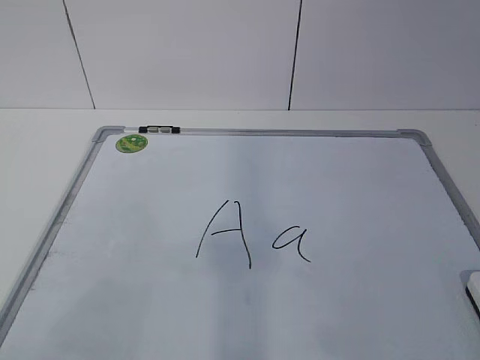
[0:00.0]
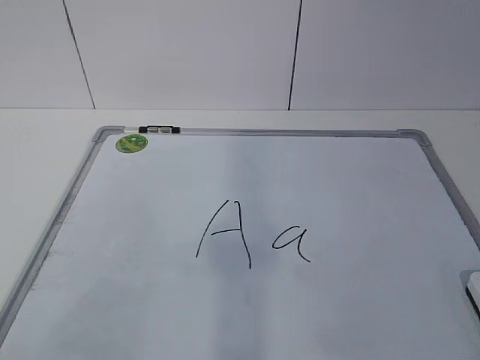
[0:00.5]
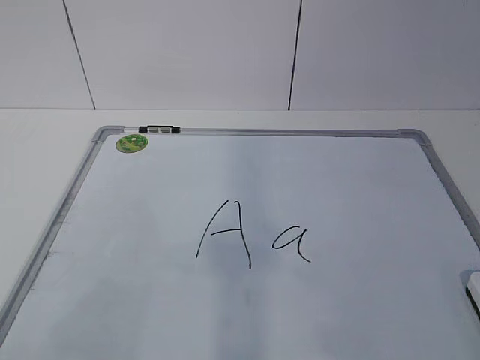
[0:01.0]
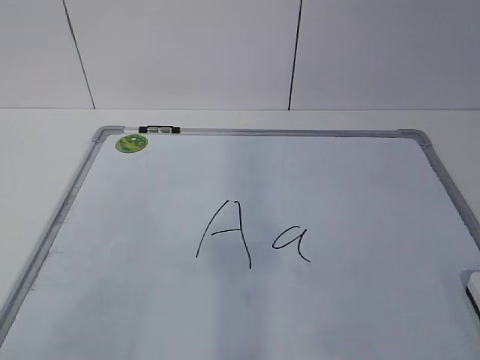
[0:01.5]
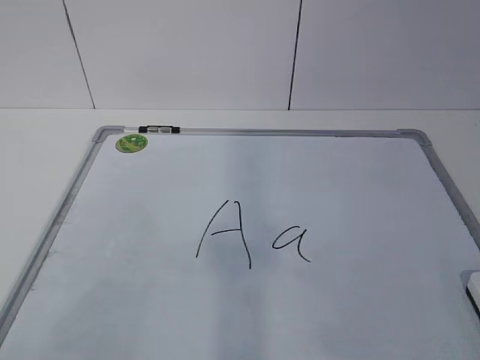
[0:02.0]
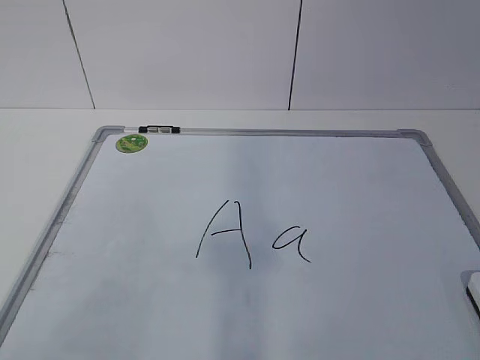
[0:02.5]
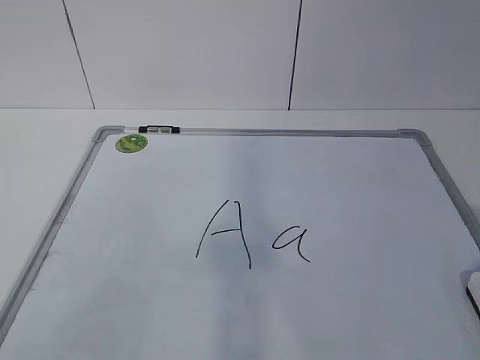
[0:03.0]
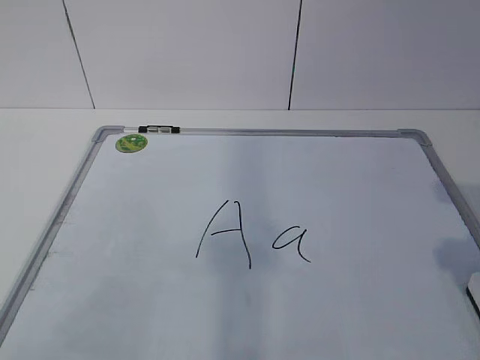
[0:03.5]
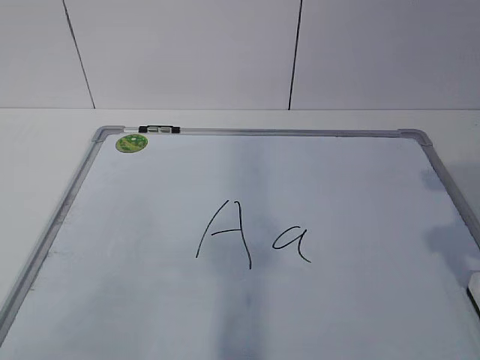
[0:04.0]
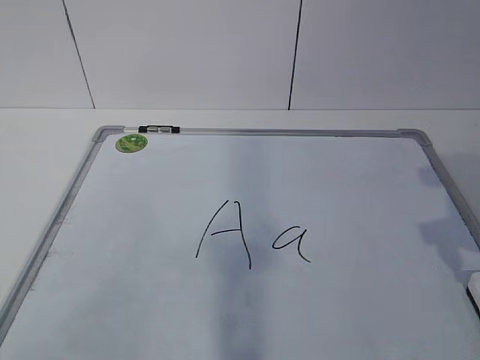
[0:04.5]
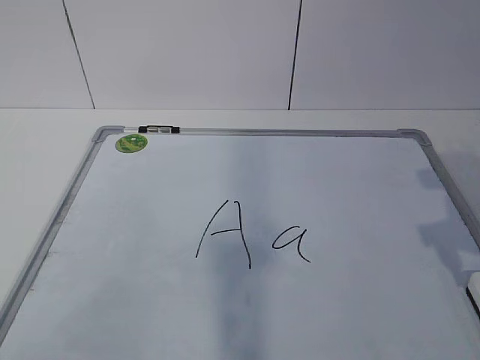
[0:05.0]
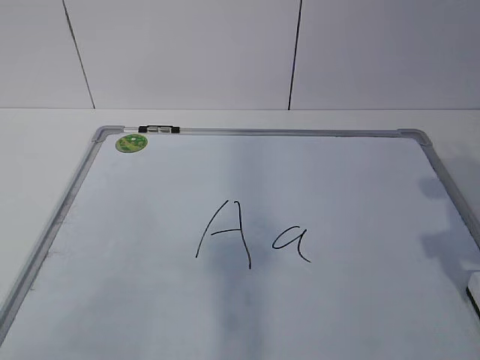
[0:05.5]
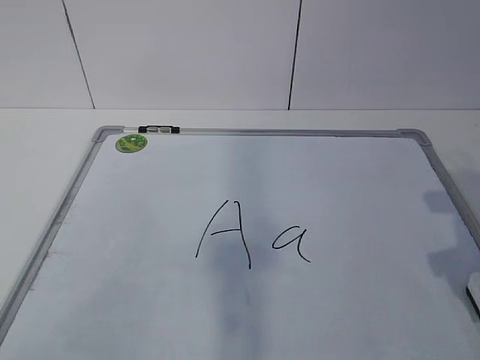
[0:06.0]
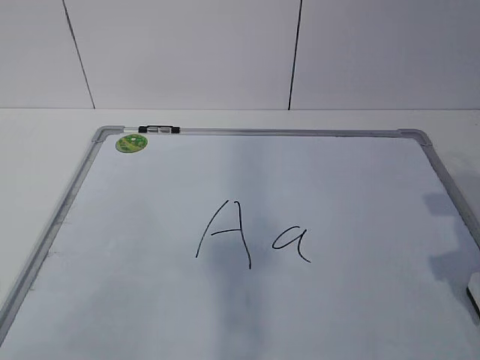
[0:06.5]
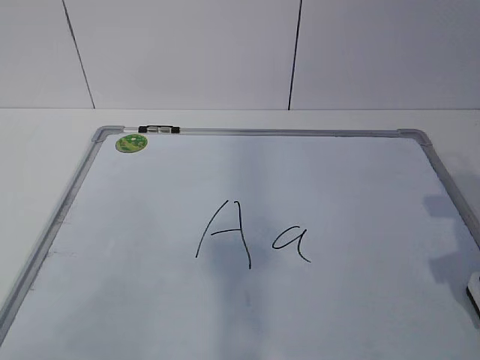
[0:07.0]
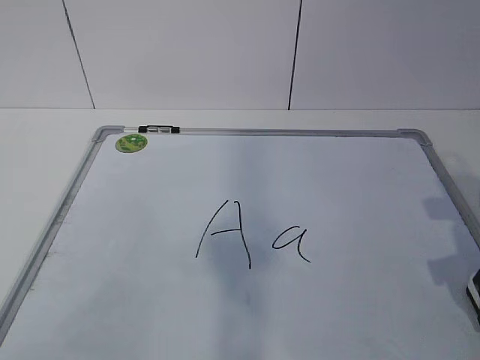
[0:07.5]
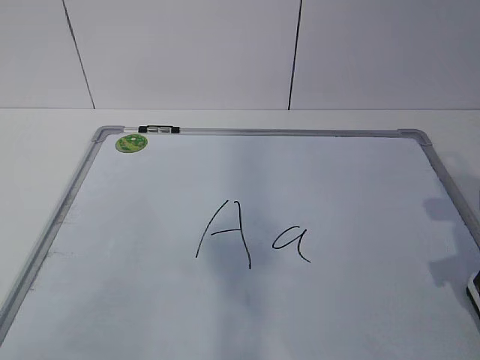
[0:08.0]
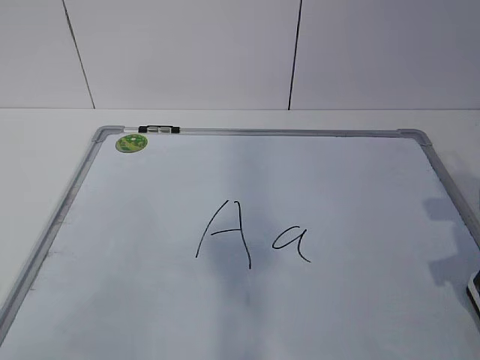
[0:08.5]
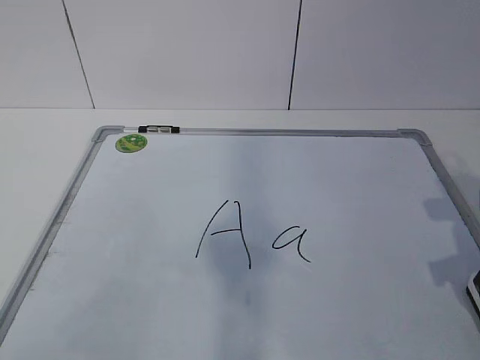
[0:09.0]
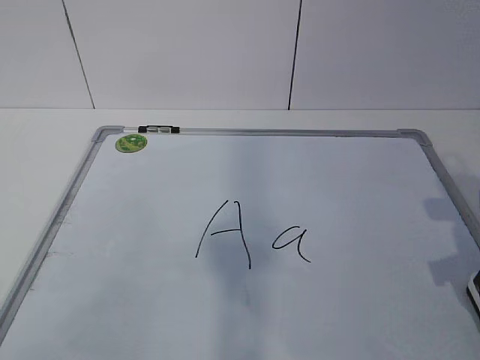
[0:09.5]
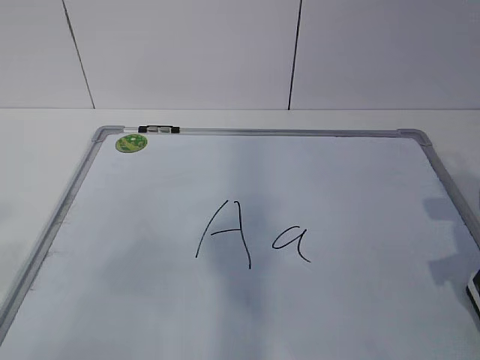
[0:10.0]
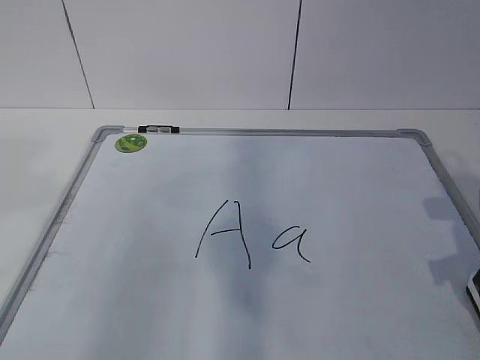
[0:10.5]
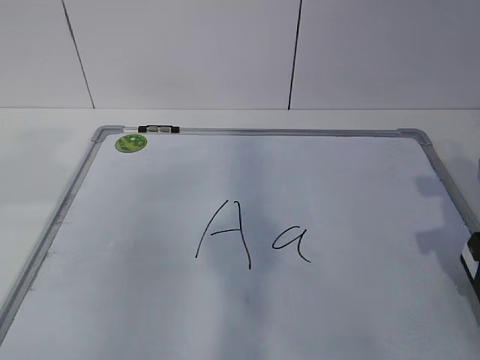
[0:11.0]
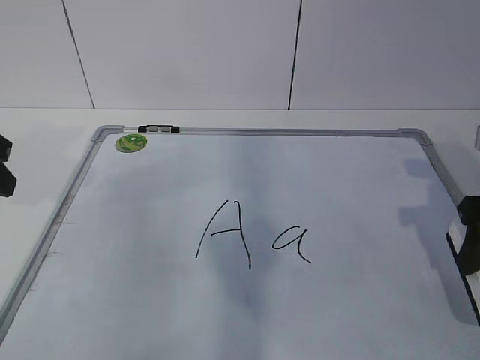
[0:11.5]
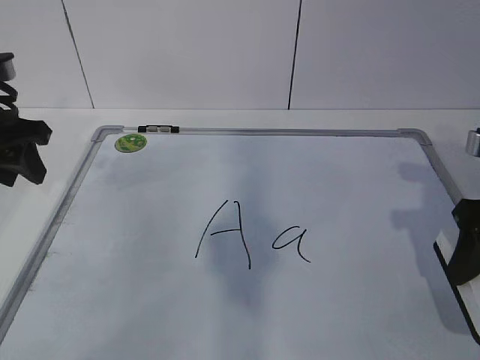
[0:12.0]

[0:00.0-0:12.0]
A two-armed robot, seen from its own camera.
Task of the whole recording: pick up the eraser on the blackboard and erase the letter "a".
0:02.0 to 0:04.0: The right gripper is displaced forward by about 20 cm, and opens its fingers.
0:10.0 to 0:12.0: The right gripper shifts by approximately 5 cm. The left gripper travels forward by approximately 30 cm.

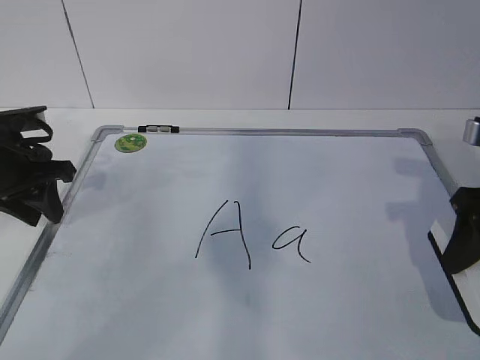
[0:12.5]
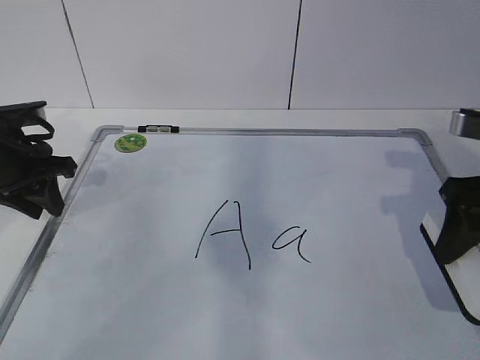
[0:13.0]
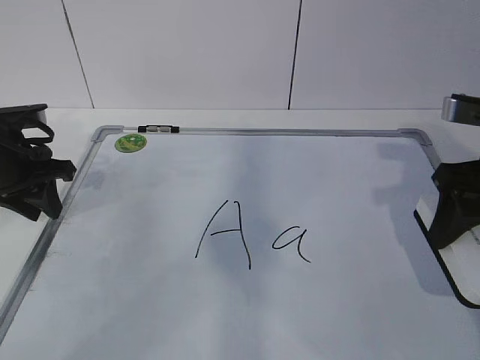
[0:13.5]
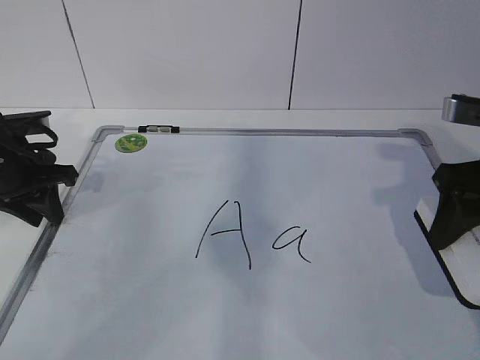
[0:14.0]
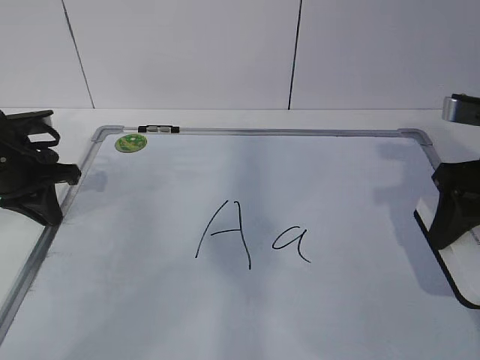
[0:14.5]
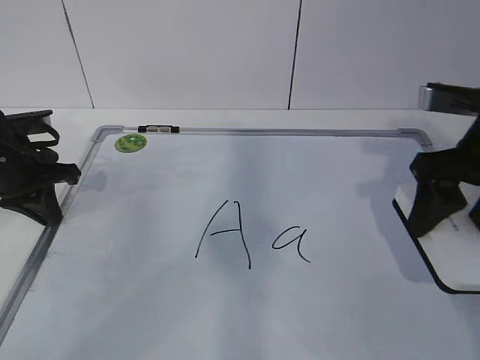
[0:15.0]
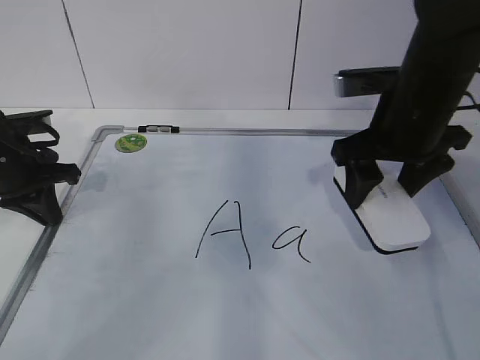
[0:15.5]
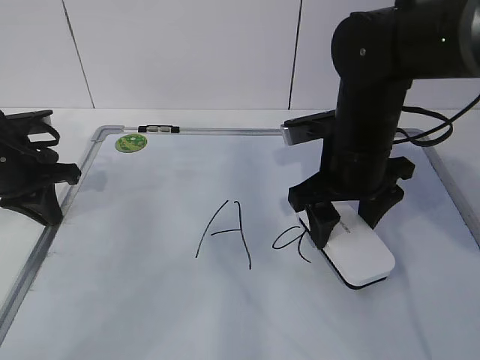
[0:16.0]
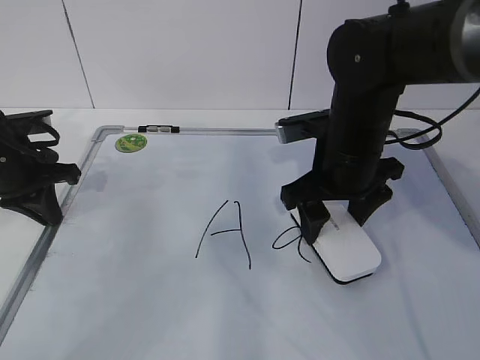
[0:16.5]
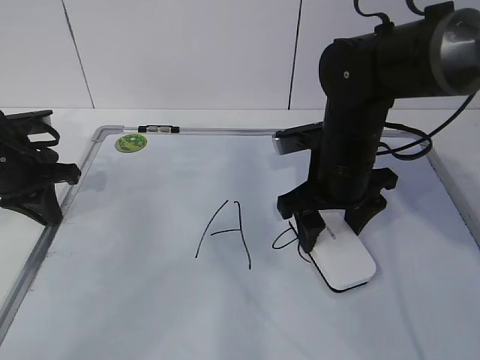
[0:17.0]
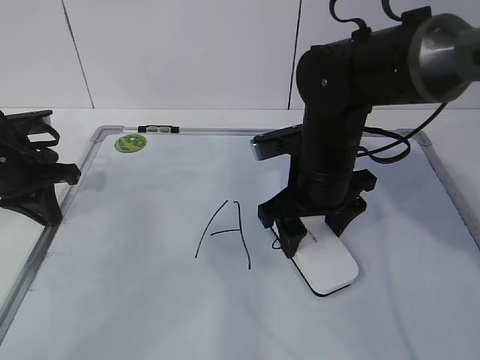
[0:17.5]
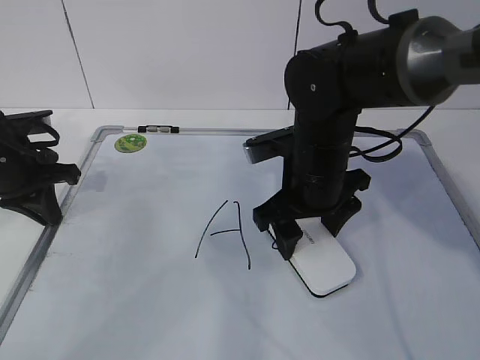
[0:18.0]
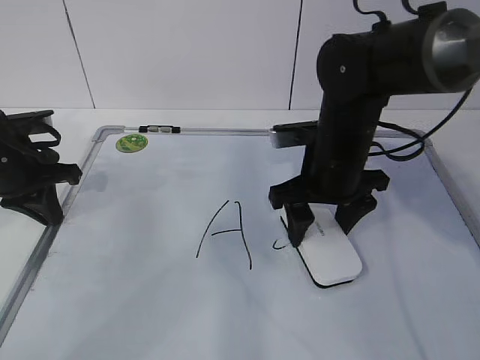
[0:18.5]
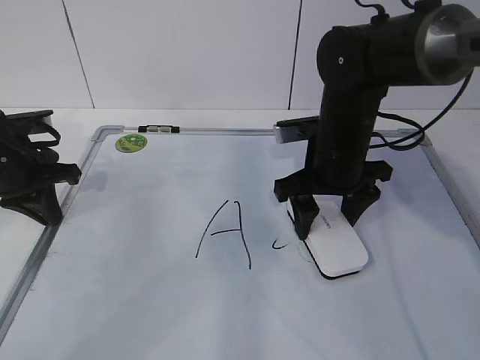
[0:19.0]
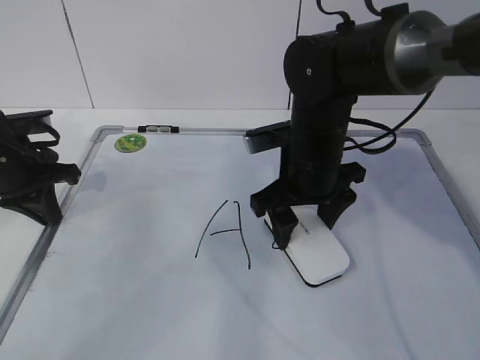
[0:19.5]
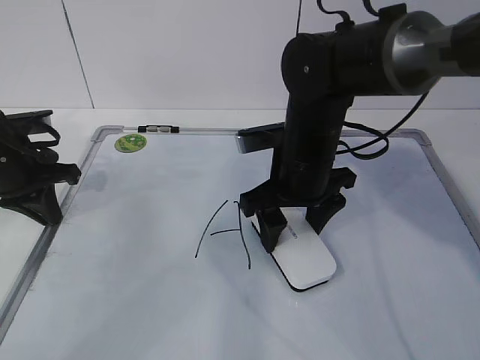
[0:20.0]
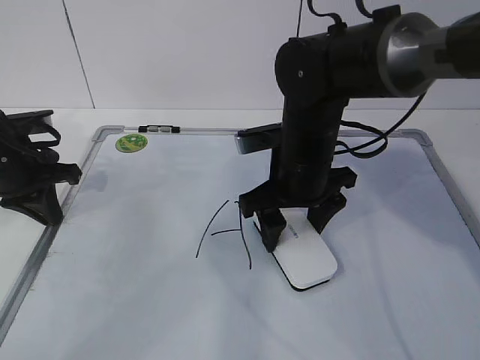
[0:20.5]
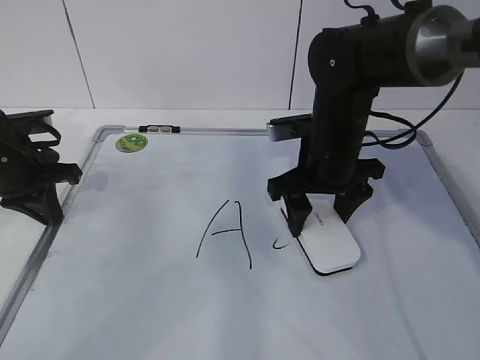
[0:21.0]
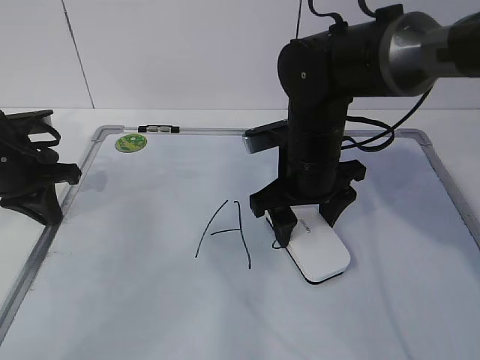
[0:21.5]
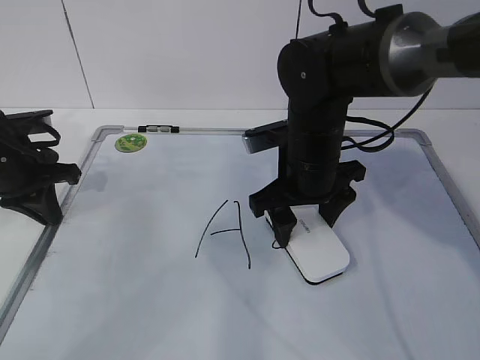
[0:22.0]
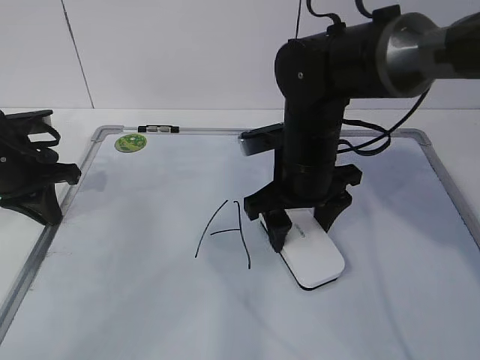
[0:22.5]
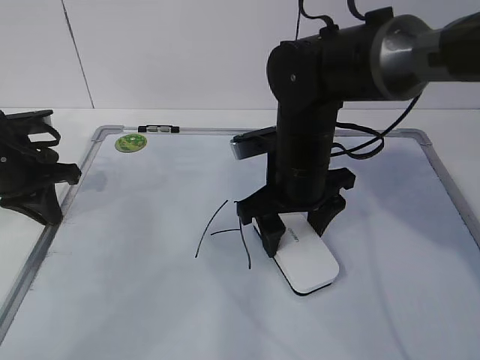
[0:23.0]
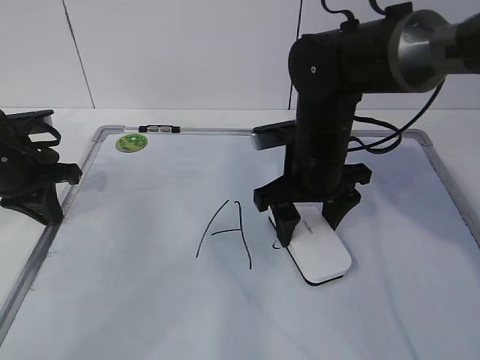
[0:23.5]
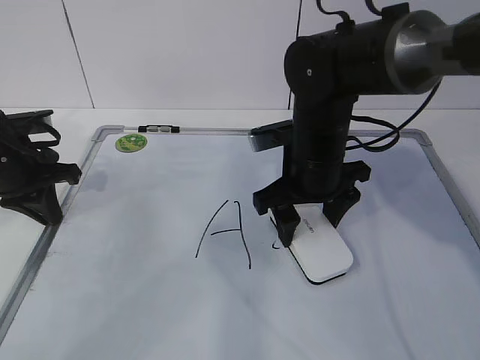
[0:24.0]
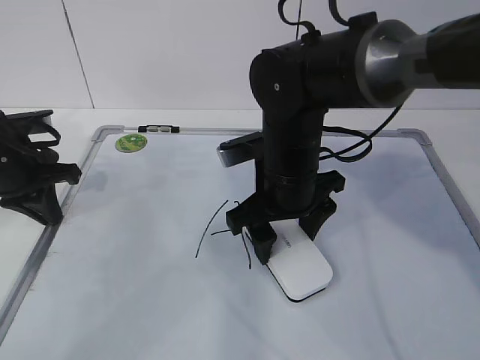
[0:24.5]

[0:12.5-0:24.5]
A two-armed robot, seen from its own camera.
Task of the whole recording: pick up the eraser on the blackboard and erase the letter "a".
Step, 0:12.5 to 0:21.0: Erase the letter a with your right hand.
0:12.5 to 0:14.5: The left gripper closes.
0:14.5 to 0:16.5: The right gripper travels to the left and forward by some 15 cm.
0:16.5 to 0:22.5: The grippers make only small movements.
0:22.5 to 0:24.5: The grippers stay close to where they were, moving slightly.

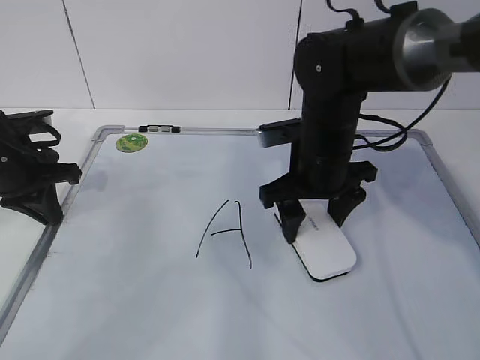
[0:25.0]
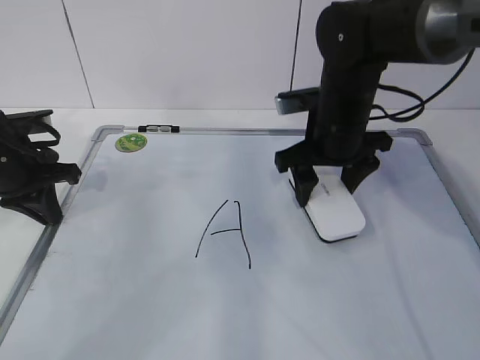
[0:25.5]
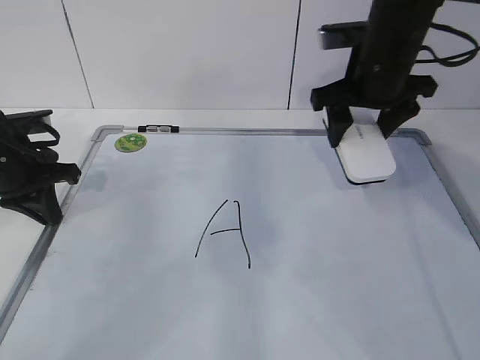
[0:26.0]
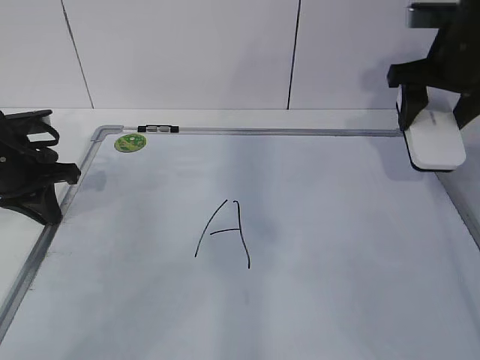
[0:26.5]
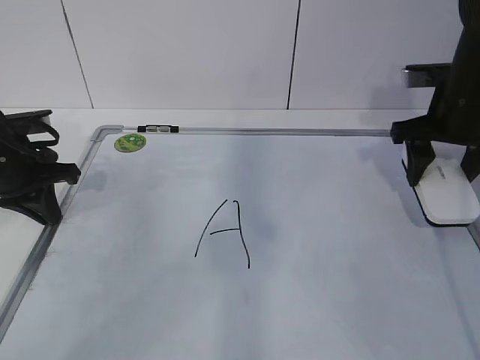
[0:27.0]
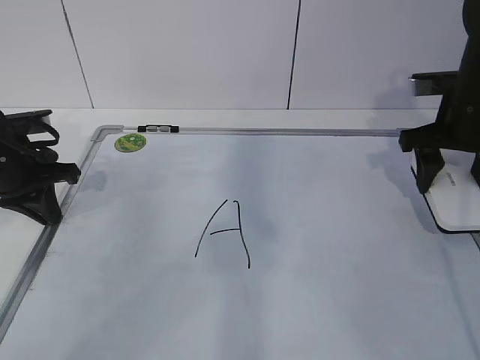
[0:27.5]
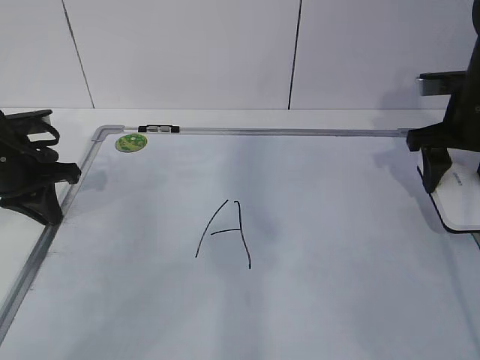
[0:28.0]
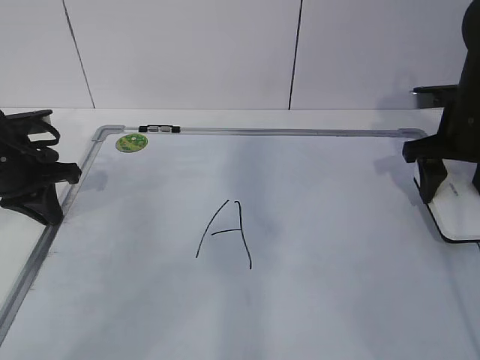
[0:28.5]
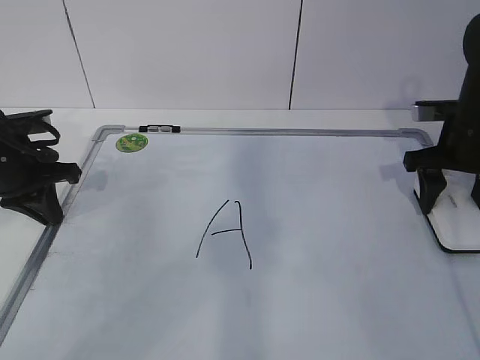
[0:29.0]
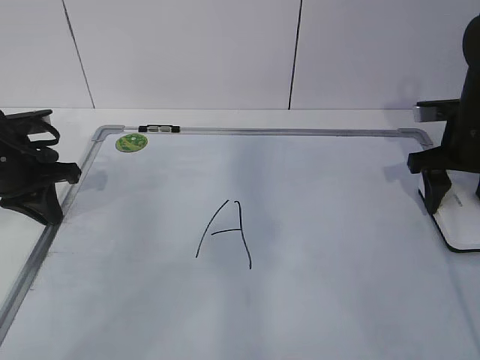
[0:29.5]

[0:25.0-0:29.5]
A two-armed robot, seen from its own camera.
Task of the whole recording: pick up the eraser on the blackboard and erase the letter "a".
0:25.0 to 0:27.0: The right gripper moves to the right, approximately 15 cm.
0:27.0 to 0:29.5: The right gripper moves some 5 cm.
